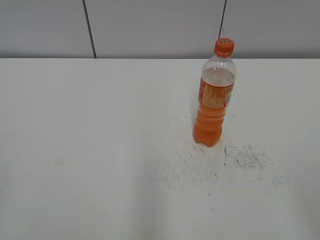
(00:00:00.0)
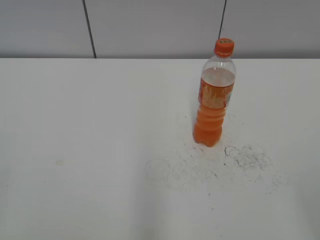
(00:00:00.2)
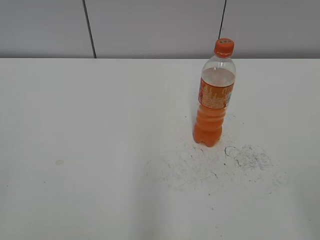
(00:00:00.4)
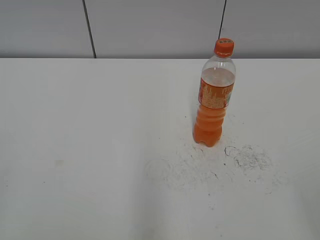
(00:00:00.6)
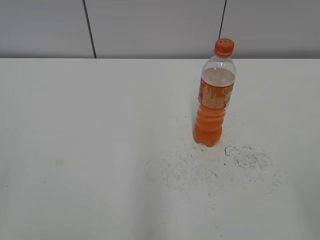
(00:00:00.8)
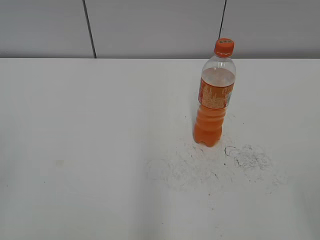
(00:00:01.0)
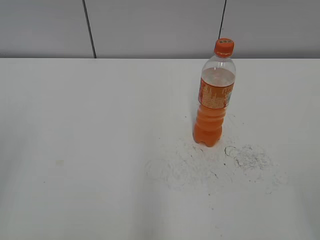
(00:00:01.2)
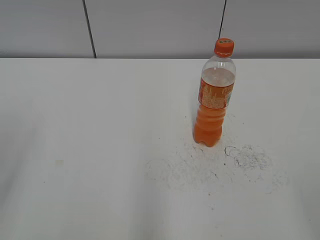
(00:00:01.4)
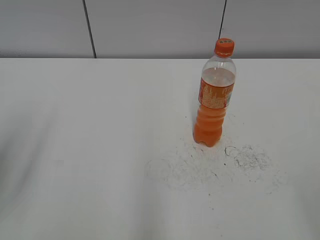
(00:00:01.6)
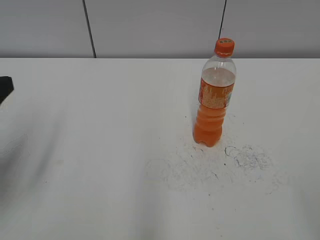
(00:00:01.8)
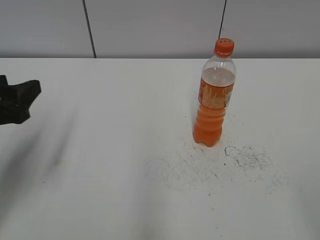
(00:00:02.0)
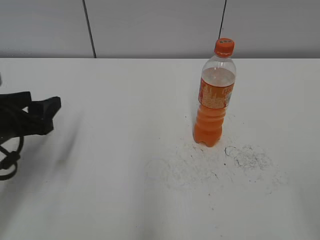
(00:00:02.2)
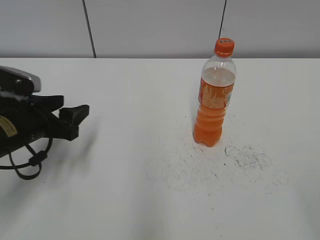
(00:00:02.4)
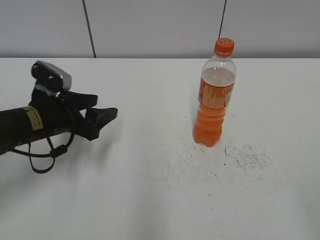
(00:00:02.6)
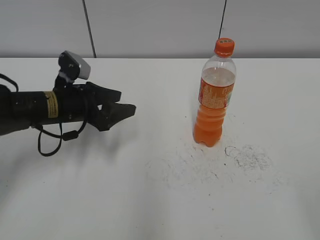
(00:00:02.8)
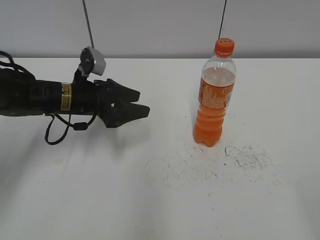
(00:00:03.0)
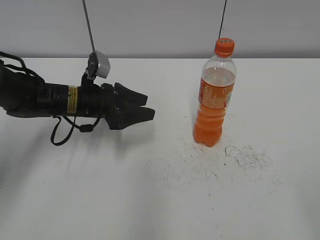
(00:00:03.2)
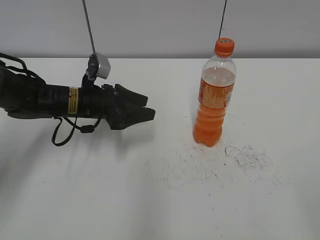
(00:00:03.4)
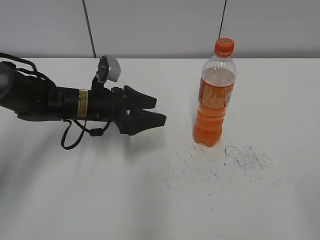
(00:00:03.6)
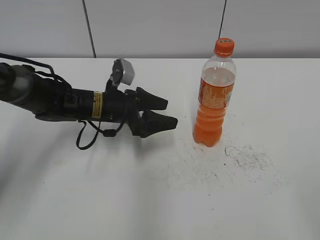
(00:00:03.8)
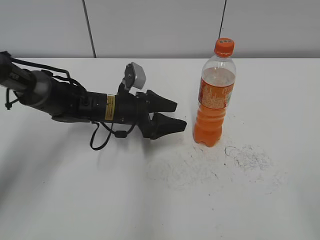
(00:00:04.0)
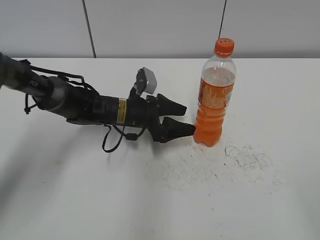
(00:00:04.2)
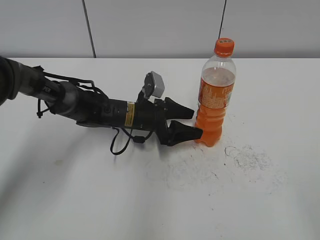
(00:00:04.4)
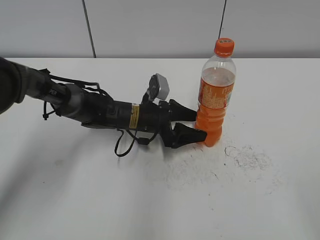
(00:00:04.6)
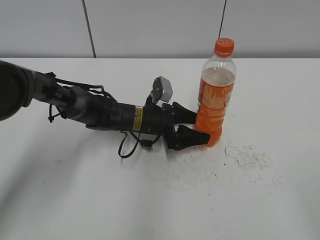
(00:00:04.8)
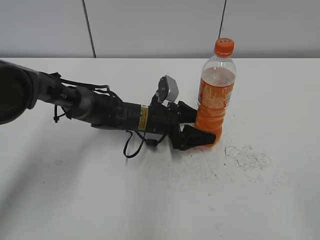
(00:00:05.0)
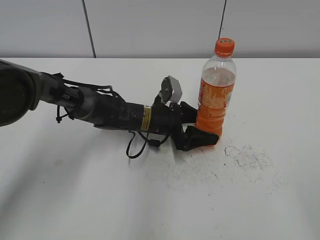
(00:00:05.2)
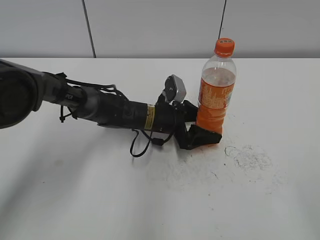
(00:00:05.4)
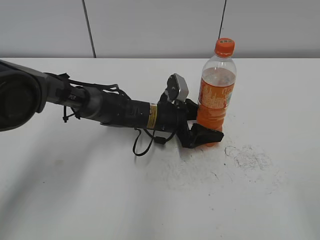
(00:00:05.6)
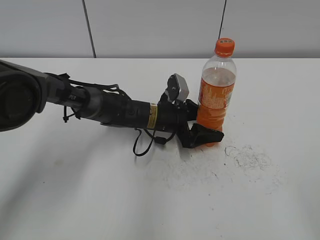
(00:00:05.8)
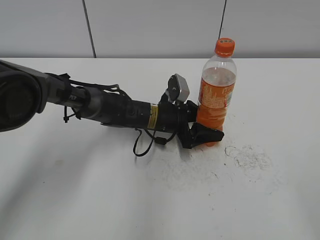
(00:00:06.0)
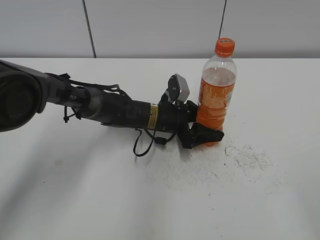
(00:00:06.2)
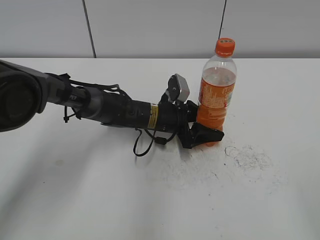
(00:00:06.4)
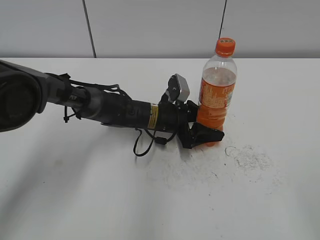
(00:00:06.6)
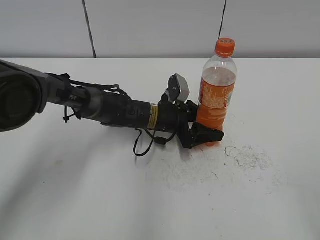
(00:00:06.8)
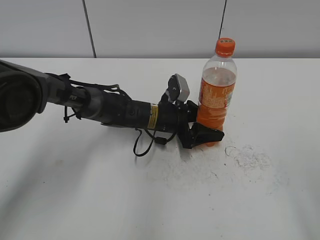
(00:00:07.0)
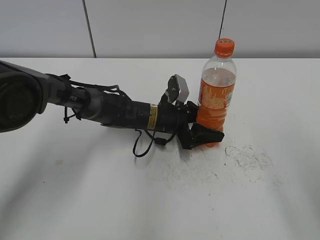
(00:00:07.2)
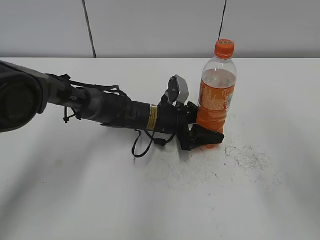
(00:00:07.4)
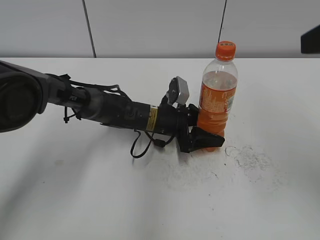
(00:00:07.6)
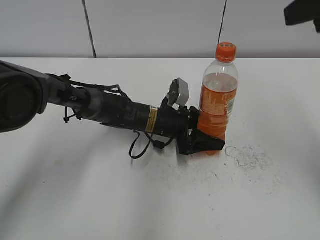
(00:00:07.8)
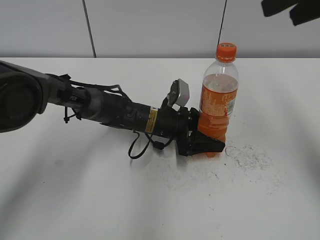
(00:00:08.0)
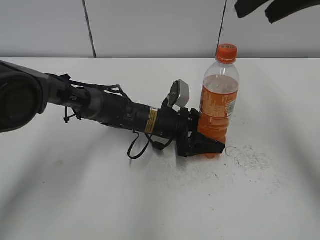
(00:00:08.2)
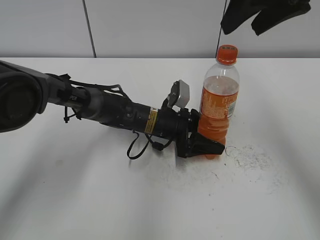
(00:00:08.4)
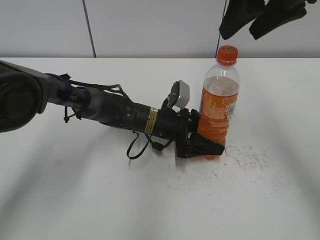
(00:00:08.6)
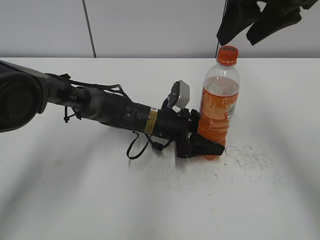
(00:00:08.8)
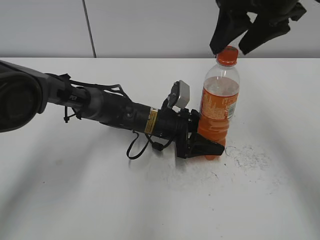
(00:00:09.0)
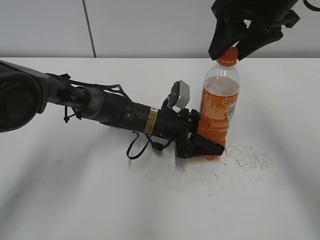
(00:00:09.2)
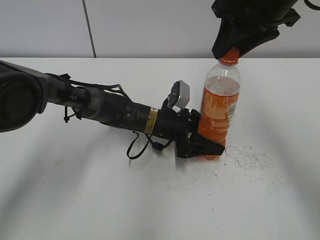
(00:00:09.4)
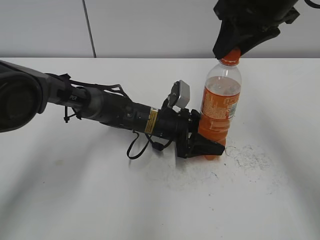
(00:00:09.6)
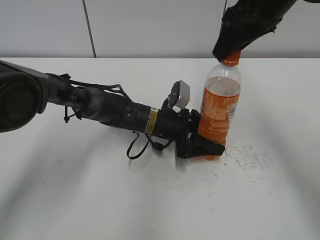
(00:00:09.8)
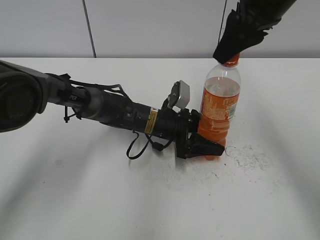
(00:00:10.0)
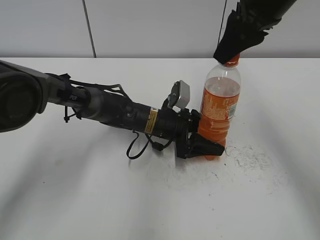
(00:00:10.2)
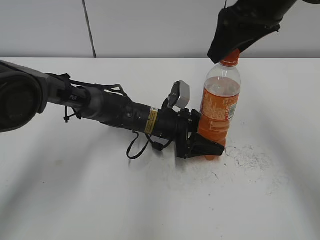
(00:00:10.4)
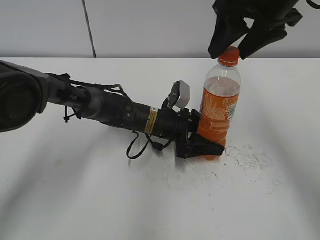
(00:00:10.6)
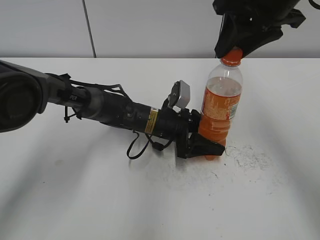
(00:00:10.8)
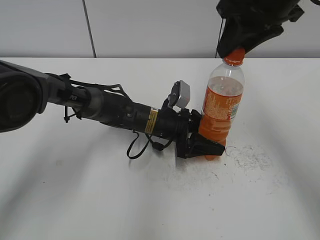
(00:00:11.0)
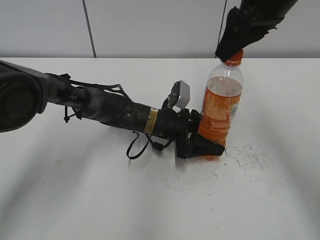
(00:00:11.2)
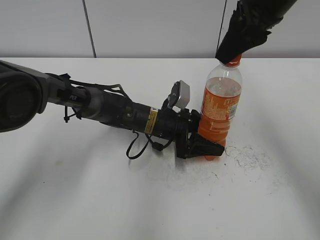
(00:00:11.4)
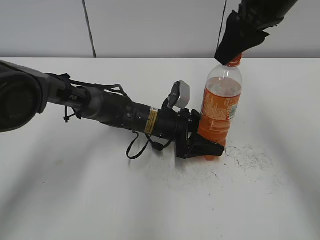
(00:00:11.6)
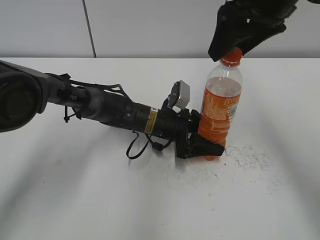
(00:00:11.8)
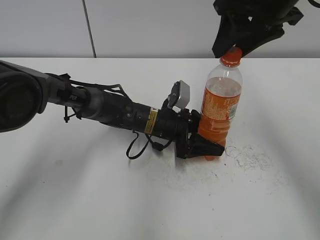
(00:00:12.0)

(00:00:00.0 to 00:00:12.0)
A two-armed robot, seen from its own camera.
Step, 00:00:00.0 - 00:00:06.2: Grab the Mirinda with the left hand.
00:00:01.6 - 00:00:03.0: The left gripper travels forward, downward and to the right by some 30 cm.
00:00:03.0 - 00:00:04.4: The left gripper goes roughly 15 cm to the right and downward, and opens its fingers.
00:00:04.4 - 00:00:06.0: The left gripper closes its fingers.
00:00:06.0 - 00:00:07.6: The right gripper shifts about 20 cm forward and upward.
00:00:07.6 - 00:00:09.0: The right gripper moves forward and to the left, some 20 cm.
00:00:09.0 - 00:00:10.4: The right gripper closes, then opens again.
00:00:10.4 - 00:00:12.0: The right gripper closes, then opens again.

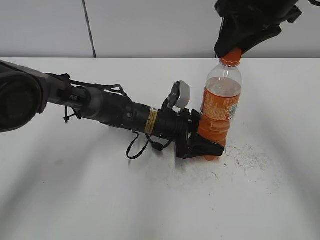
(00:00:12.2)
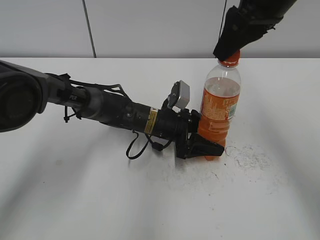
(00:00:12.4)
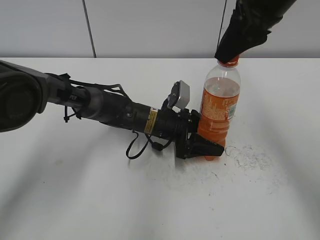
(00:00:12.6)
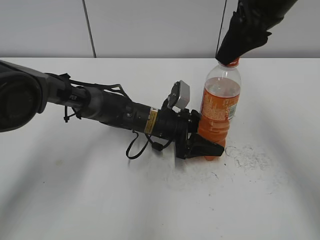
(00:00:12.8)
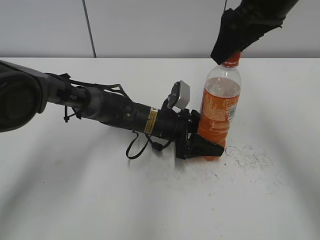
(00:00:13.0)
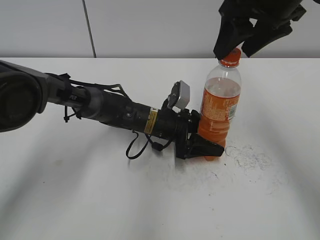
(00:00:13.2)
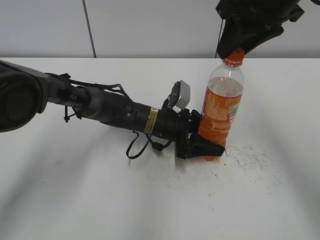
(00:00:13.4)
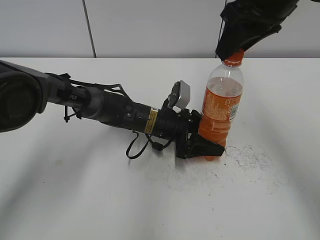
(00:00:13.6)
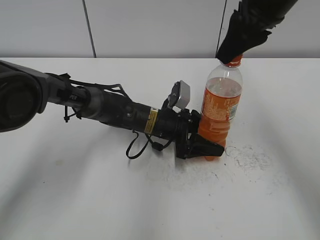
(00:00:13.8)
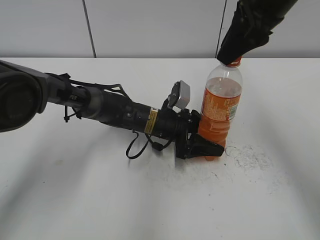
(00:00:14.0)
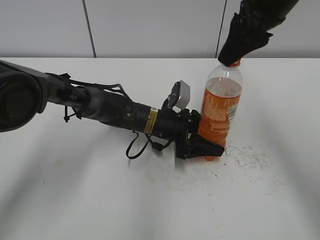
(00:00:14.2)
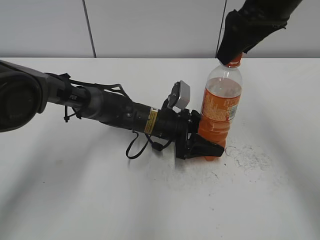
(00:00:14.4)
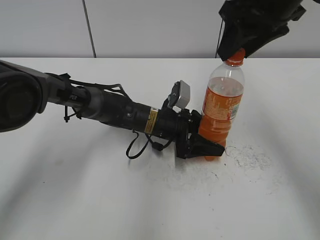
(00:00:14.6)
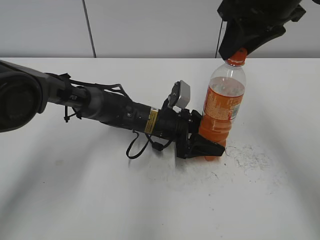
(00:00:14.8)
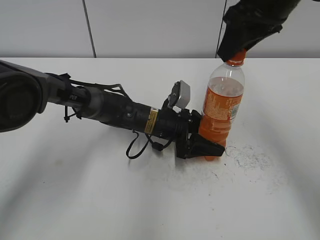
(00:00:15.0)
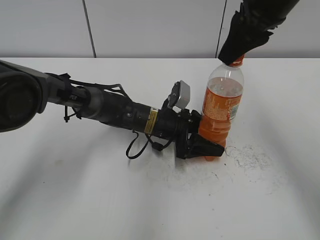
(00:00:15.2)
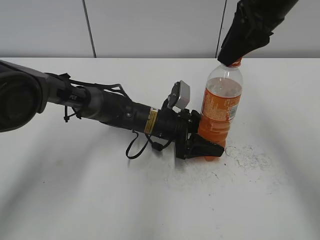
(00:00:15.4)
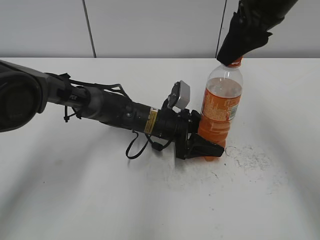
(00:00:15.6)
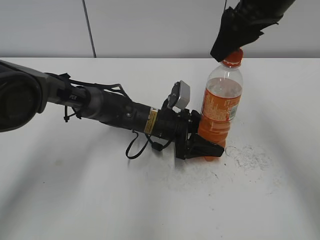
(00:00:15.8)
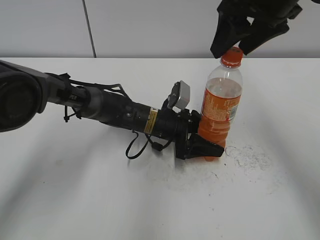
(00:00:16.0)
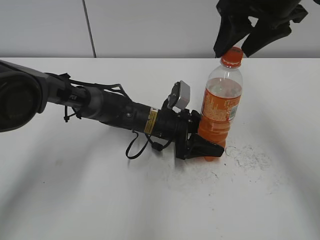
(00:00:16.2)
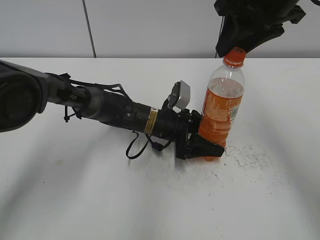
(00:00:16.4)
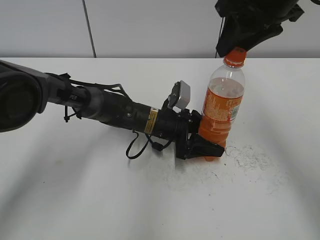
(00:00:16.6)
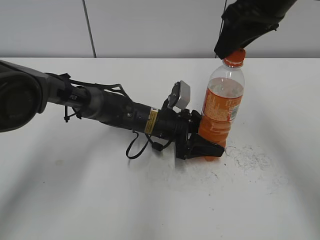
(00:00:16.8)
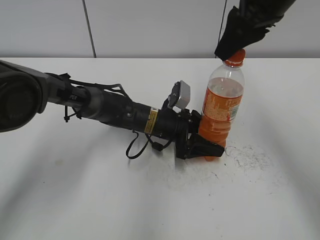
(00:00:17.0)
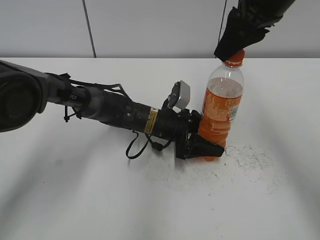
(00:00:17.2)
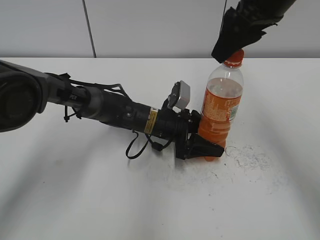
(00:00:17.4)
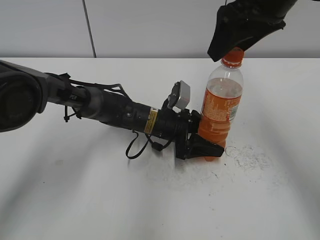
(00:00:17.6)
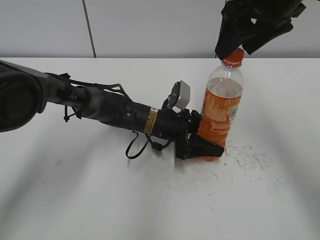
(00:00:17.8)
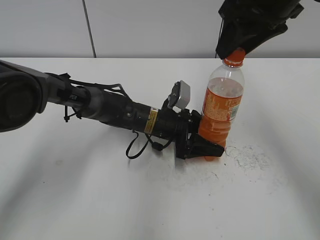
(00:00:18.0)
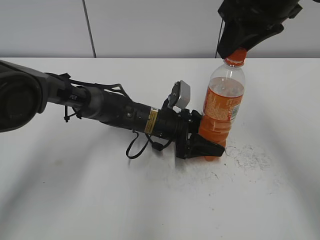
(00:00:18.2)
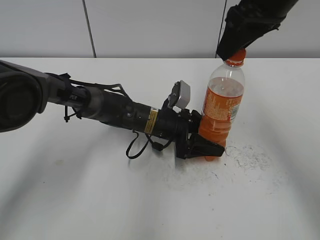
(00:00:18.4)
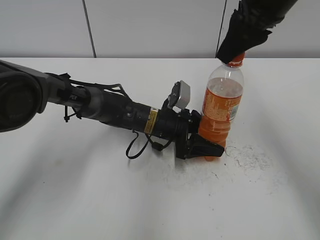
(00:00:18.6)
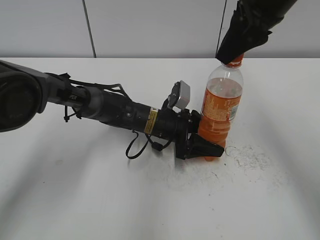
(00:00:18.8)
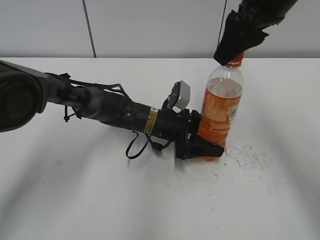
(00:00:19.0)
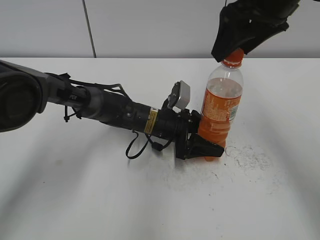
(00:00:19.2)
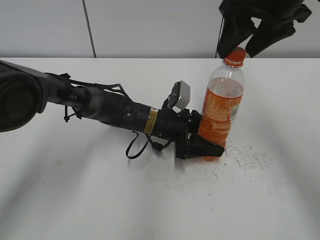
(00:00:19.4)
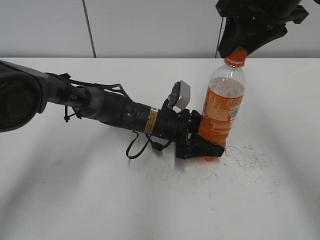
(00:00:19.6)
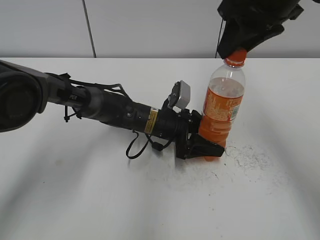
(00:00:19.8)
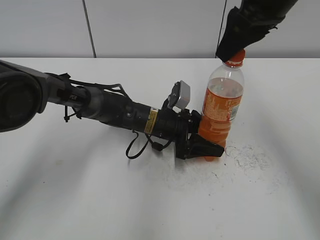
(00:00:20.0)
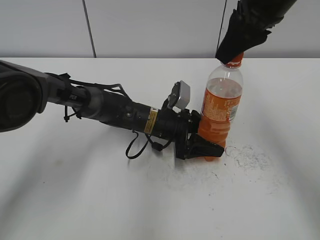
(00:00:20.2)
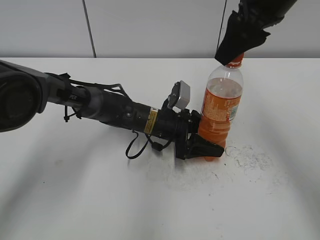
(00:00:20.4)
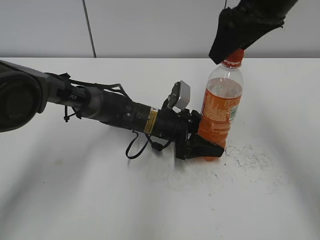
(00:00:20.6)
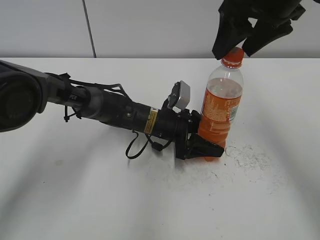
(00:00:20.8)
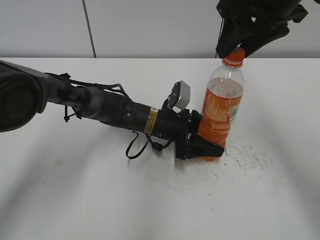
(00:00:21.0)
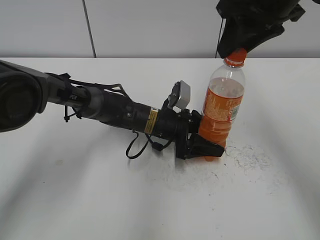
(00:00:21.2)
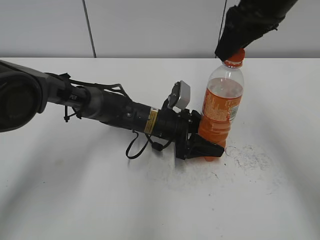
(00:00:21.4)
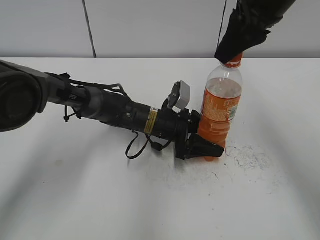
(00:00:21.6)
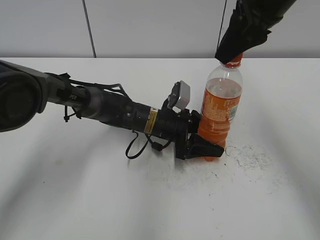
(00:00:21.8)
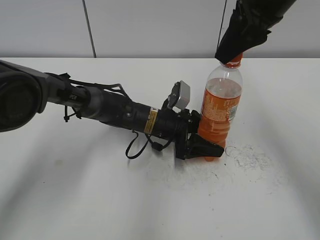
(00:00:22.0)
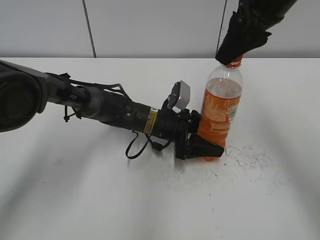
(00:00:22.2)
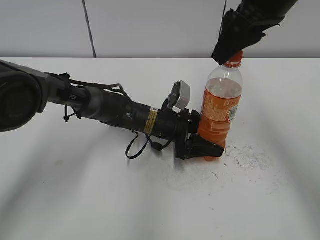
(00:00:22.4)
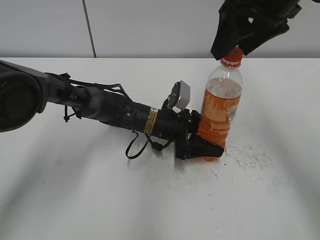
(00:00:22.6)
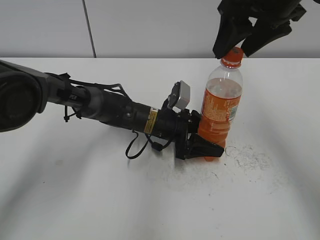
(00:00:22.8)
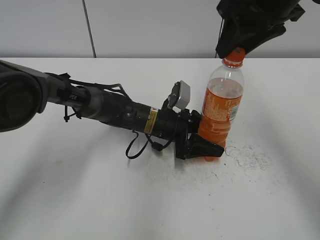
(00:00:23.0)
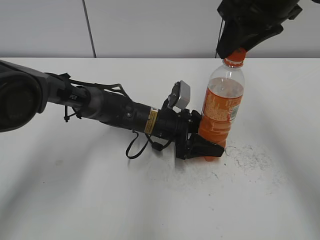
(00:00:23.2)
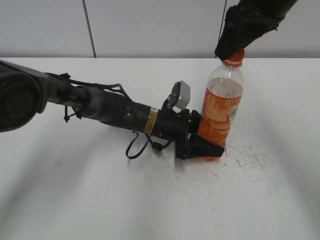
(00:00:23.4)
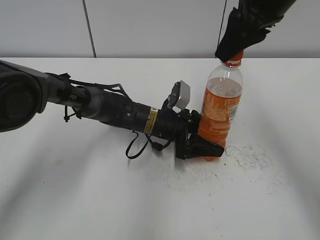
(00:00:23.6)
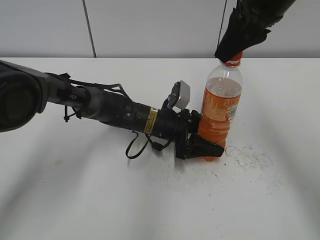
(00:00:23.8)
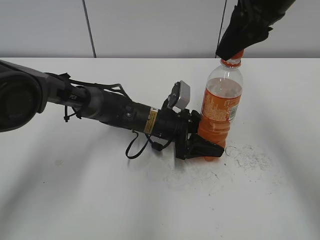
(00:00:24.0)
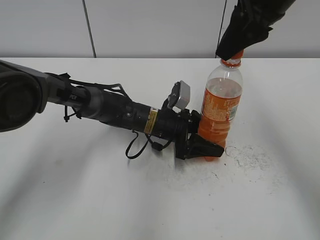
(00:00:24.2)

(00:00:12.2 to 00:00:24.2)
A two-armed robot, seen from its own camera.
00:00:12.2 - 00:00:13.8: The right gripper opens, then closes once more.
00:00:13.8 - 00:00:15.2: The right gripper opens, then closes once more.
00:00:15.2 - 00:00:16.6: The right gripper opens, then closes again.
00:00:21.2 - 00:00:22.6: The right gripper opens.
00:00:22.6 - 00:00:24.2: The right gripper closes its fingers.
